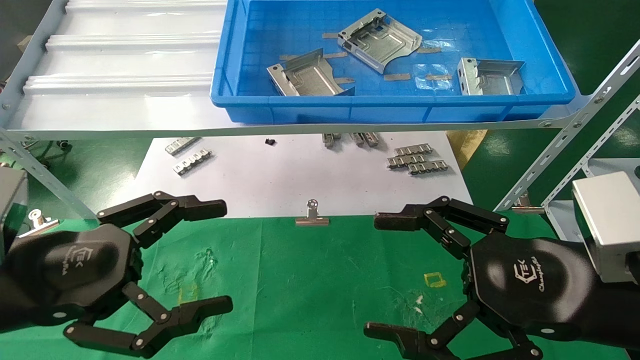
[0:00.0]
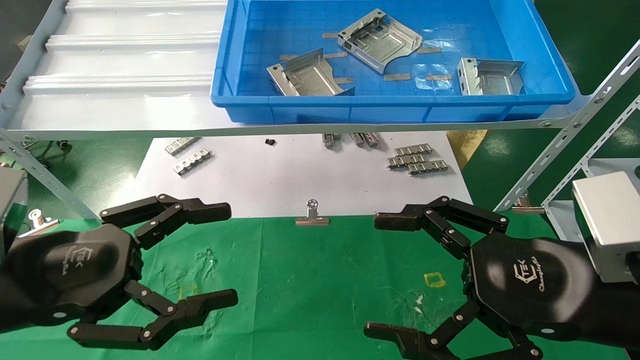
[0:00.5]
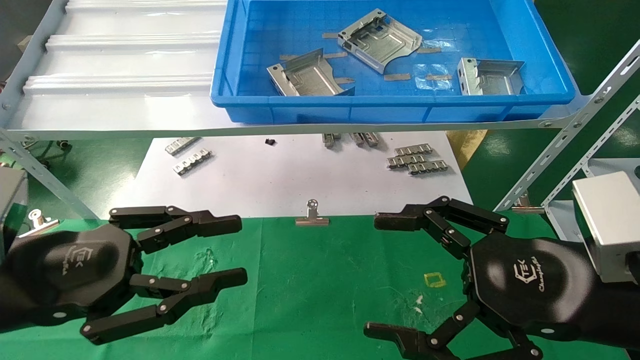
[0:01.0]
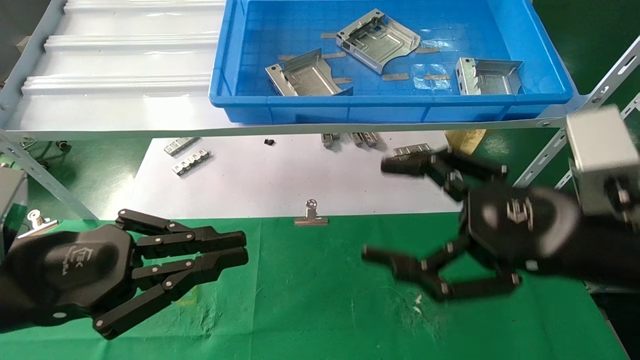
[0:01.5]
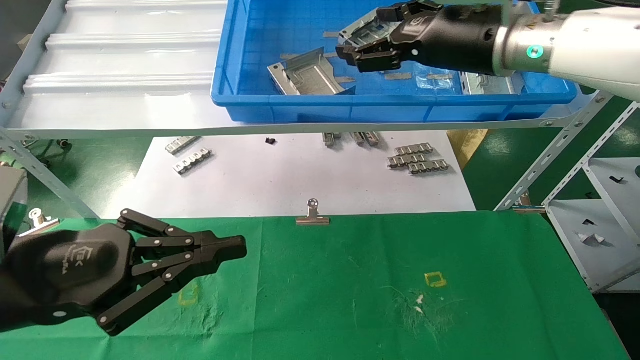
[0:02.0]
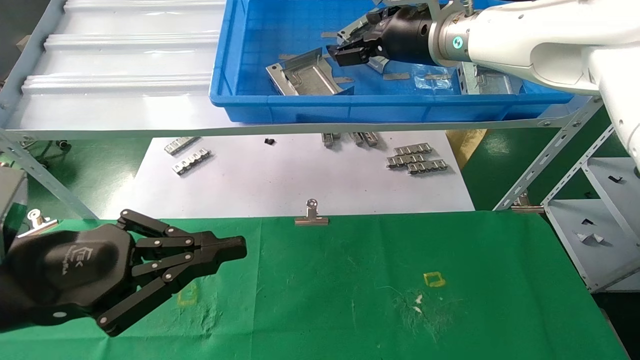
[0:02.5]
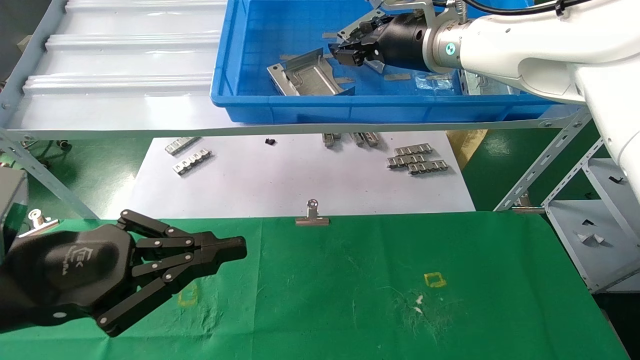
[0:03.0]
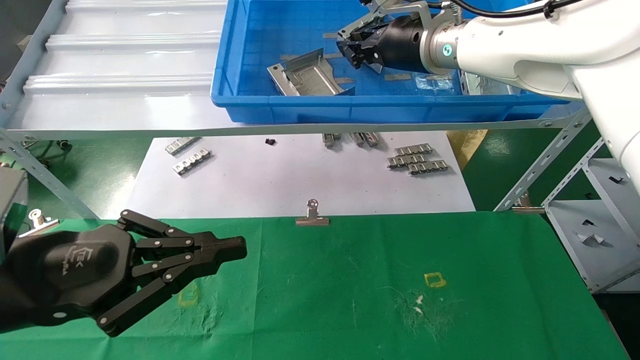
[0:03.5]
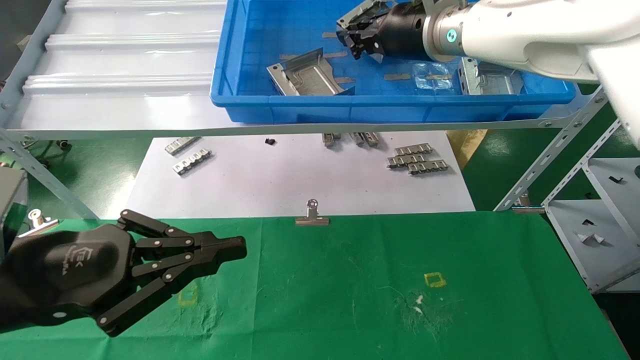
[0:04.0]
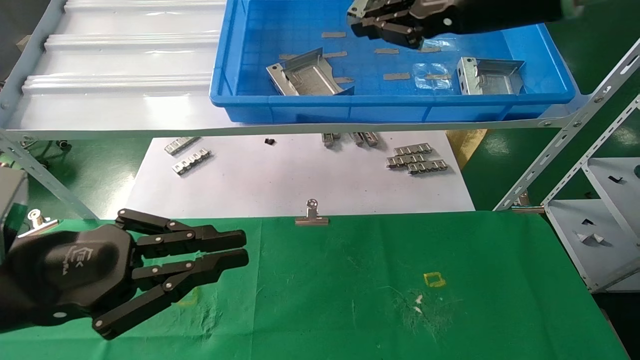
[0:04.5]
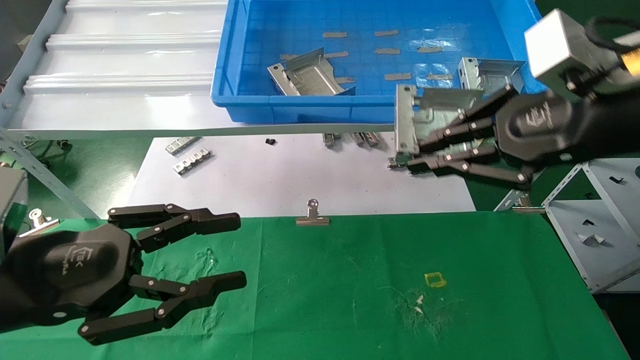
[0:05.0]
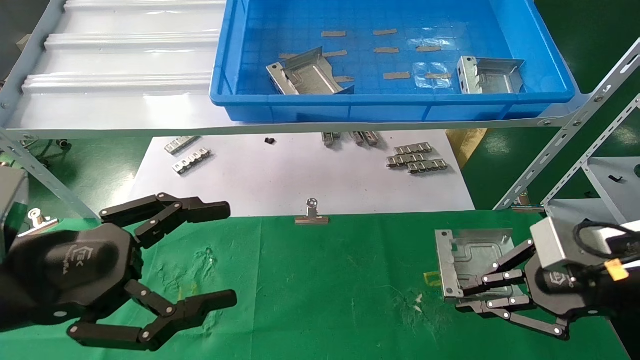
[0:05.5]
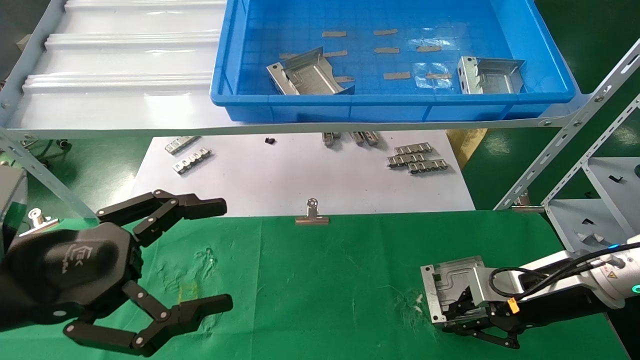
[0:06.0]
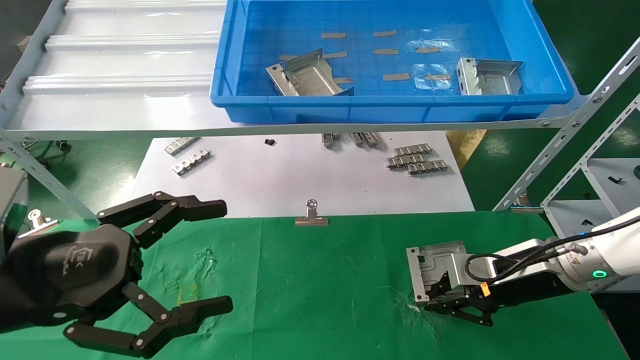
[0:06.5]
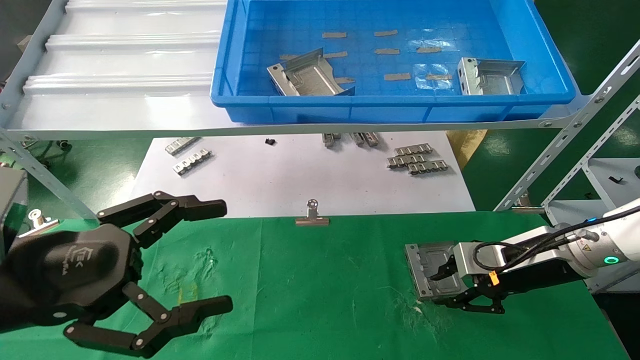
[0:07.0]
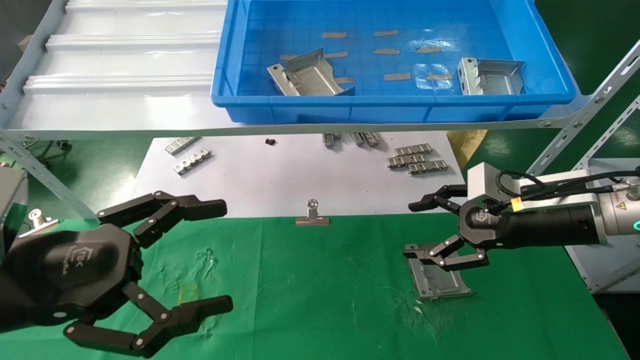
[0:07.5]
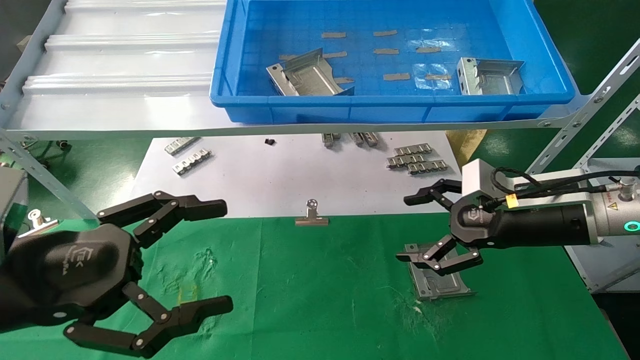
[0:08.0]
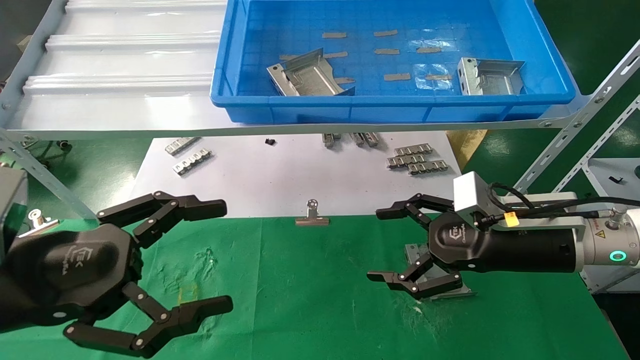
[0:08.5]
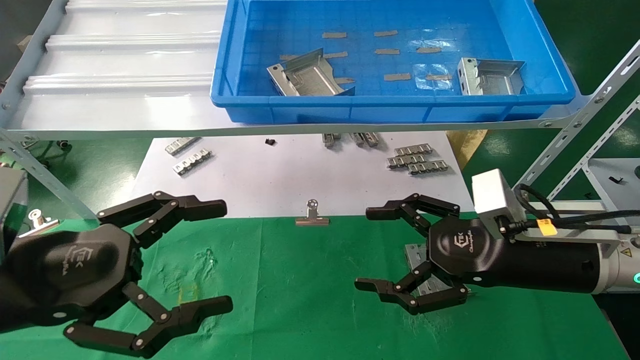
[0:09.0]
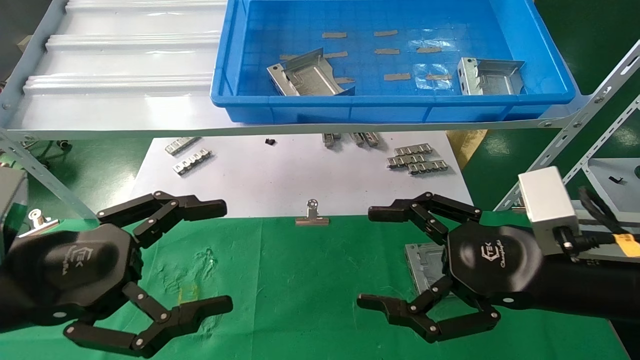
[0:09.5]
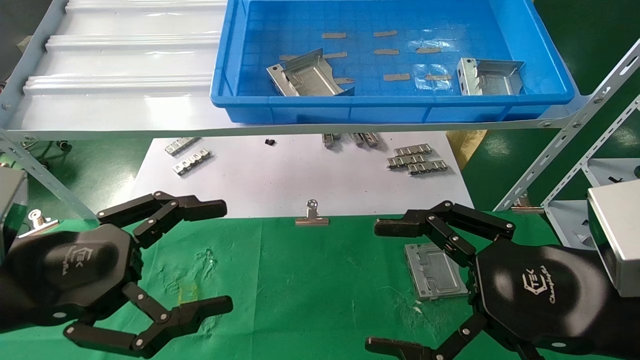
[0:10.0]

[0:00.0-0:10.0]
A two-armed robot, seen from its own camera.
Task of the whole recording: use the mechanical arm to pick up the parts and place them on the table.
Step, 0:01.5 to 0:04.5: Pick up the hard drive bracket from the feeding area.
Step, 0:05.0 to 0:07.5: Place the hard drive bracket into the box.
0:00.0 to 0:02.0: The left gripper closes, while the right gripper travels forward and upward by roughly 25 cm.
0:02.0 to 0:04.0: The right gripper goes some 5 cm to the left, and closes.
0:04.0 to 0:06.0: The right gripper moves downward and to the right, some 35 cm. Meanwhile the left gripper opens.
0:06.0 to 0:08.0: The right gripper heads upward, covering some 5 cm, and opens up.
0:08.0 to 0:10.0: The right gripper shifts about 15 cm backward.
